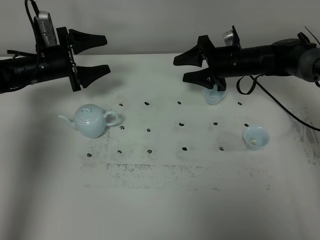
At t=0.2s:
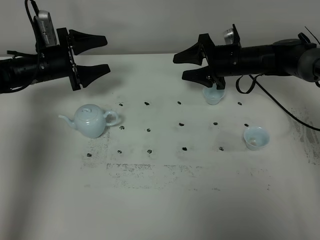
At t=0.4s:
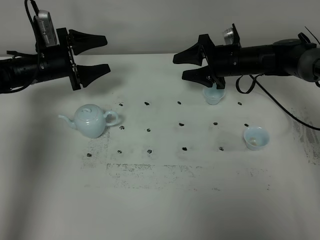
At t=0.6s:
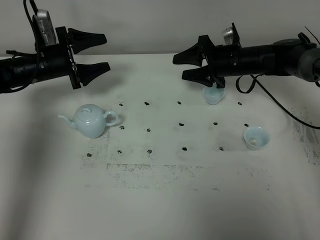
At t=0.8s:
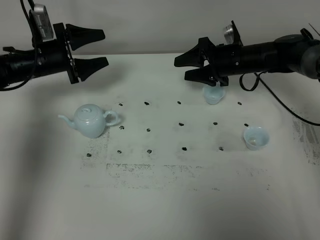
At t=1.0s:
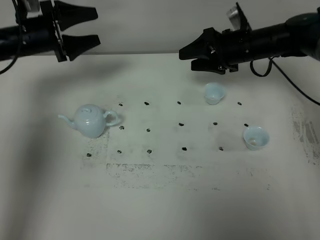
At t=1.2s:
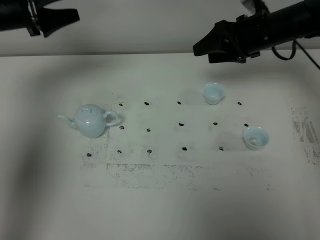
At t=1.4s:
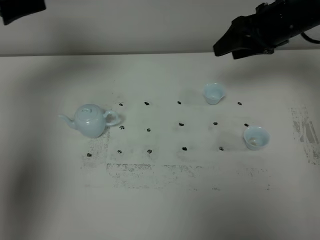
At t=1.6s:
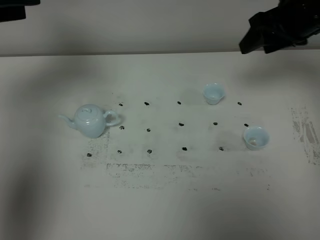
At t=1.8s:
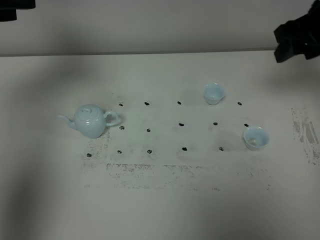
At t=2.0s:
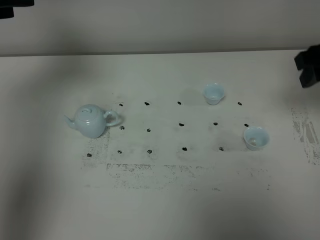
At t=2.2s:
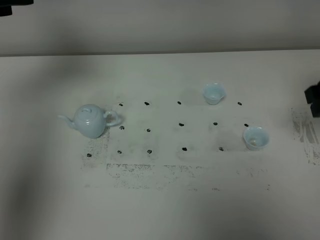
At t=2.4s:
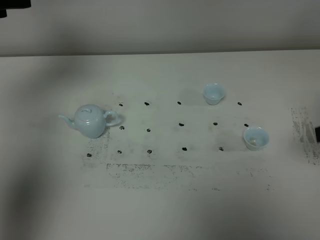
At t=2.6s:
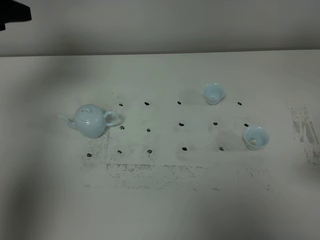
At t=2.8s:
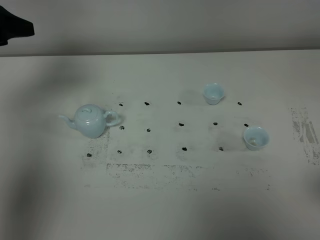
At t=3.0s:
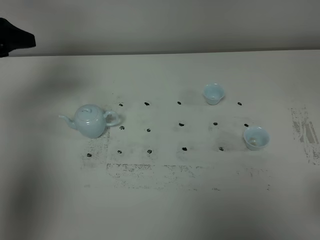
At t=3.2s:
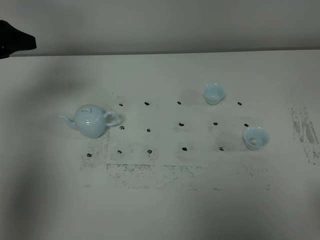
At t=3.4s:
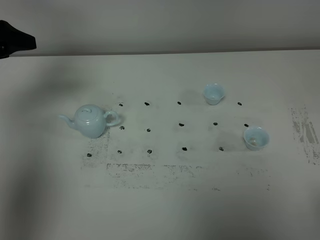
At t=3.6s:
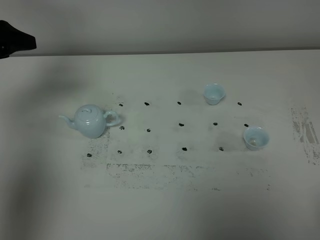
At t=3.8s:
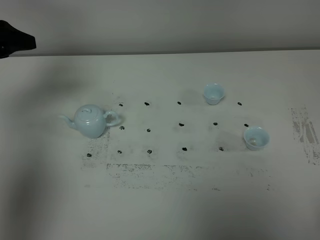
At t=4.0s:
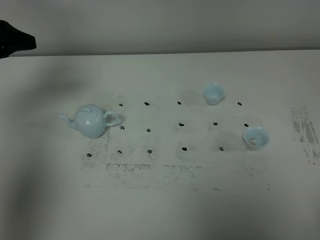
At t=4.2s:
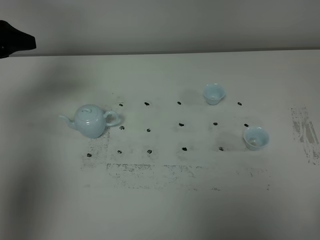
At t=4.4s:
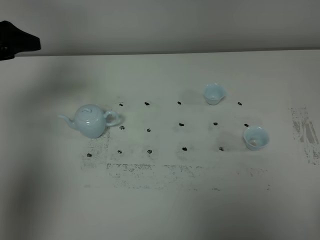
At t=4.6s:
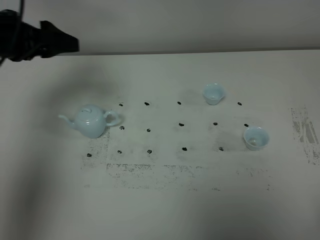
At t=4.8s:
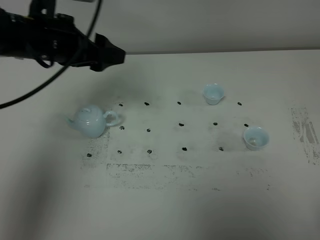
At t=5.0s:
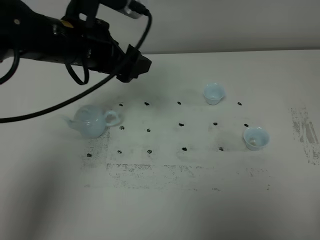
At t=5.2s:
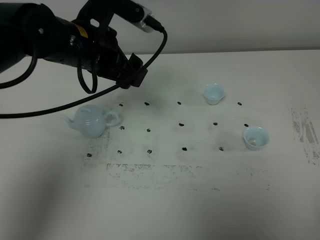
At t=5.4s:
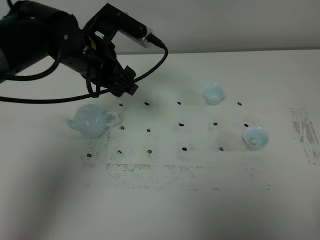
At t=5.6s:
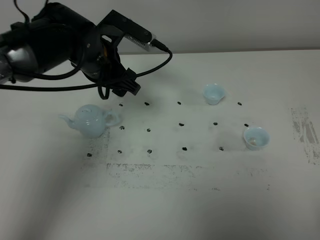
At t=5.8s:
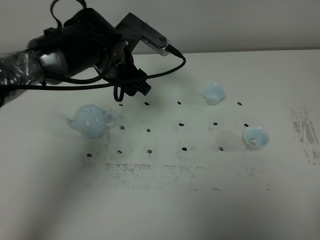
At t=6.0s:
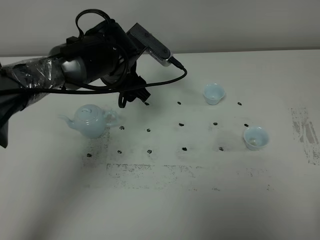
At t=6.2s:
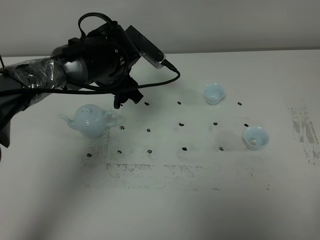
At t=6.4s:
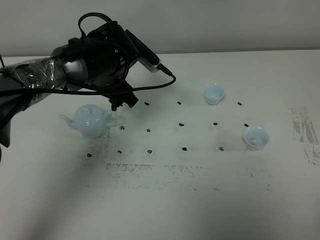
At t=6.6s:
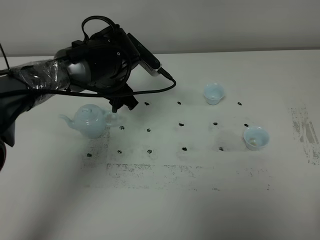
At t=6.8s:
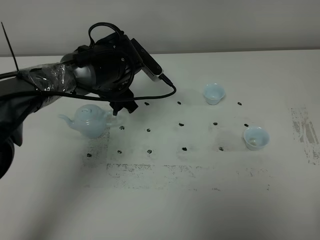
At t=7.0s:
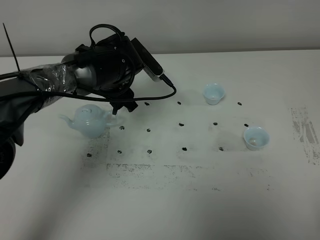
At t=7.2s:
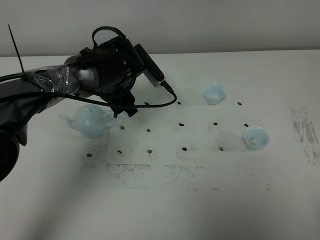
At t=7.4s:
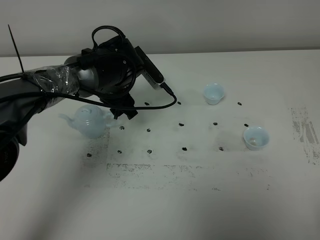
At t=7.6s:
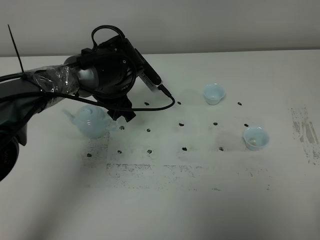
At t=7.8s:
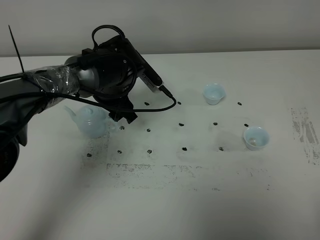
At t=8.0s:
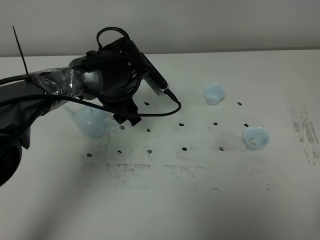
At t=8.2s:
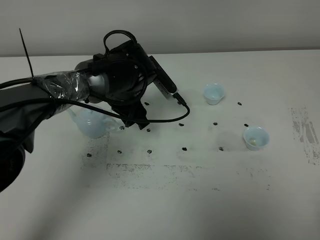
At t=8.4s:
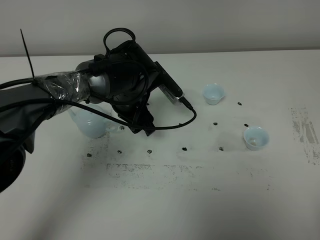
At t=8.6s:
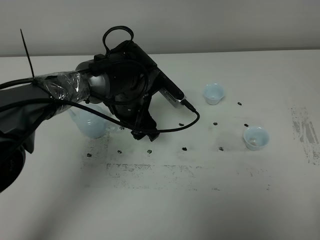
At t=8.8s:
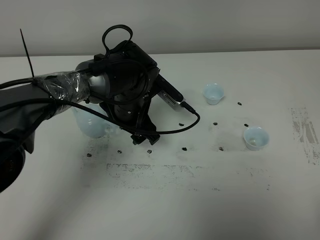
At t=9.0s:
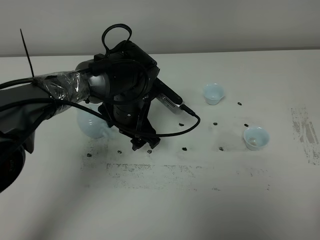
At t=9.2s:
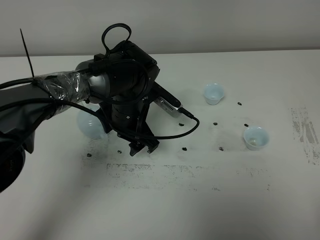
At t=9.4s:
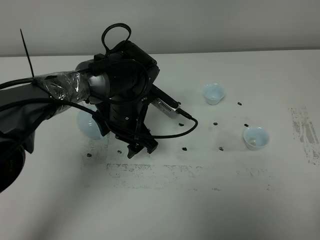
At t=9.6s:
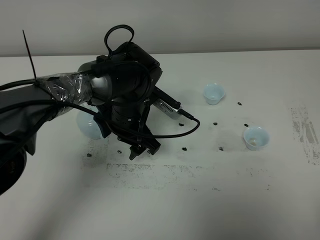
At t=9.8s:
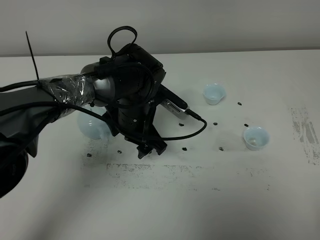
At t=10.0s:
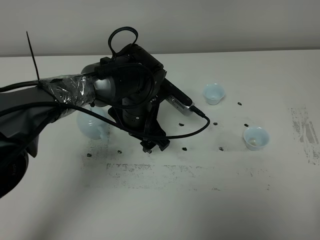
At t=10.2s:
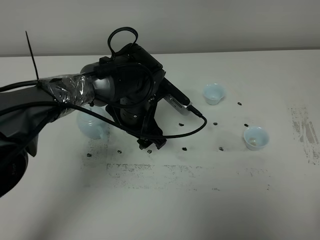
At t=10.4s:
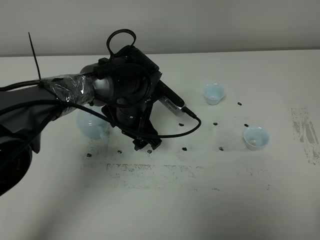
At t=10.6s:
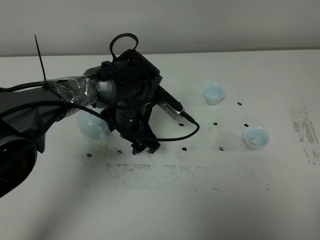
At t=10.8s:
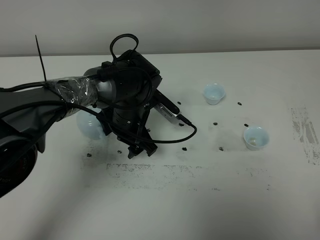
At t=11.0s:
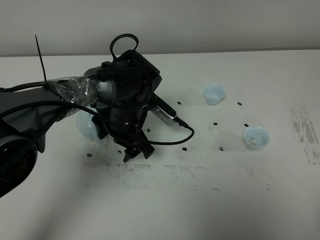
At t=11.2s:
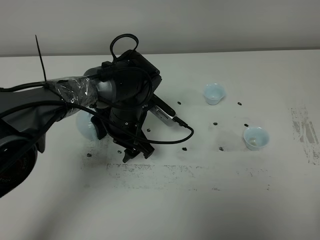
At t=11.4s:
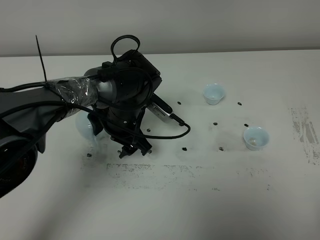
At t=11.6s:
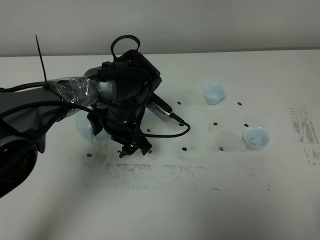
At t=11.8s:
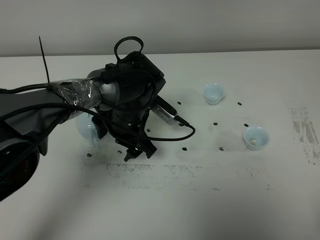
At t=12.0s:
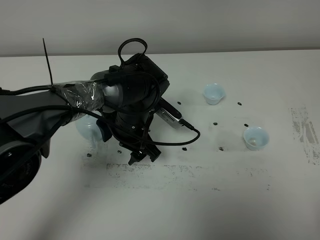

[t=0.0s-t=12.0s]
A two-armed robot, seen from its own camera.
Task of the whole recording: grasp the blue porcelain teapot and pour the tea into the two blue porcelain teacups one by one, put the blue porcelain teapot back in its original place.
t=0.0s to t=1.6s: Both grippers move upward and backward, approximately 25 cm.
t=1.6s to t=3.0s: The left gripper moves downward, some 10 cm, while the right gripper is displaced backward by about 35 cm.
t=4.4s to t=6.0s: The left gripper goes some 25 cm to the right.
t=6.0s to t=7.6s: There are only small adjustments of the grippers.
t=7.6s to t=9.0s: The left gripper shifts by about 5 cm.
t=9.0s to t=12.0s: There are only small adjustments of the grippers.

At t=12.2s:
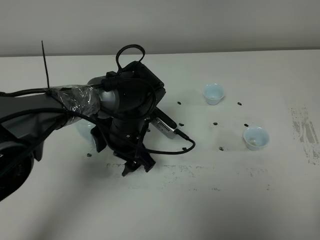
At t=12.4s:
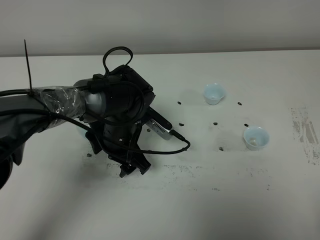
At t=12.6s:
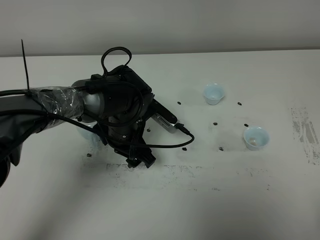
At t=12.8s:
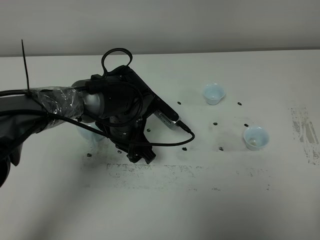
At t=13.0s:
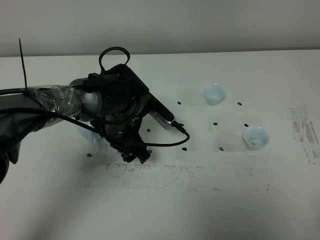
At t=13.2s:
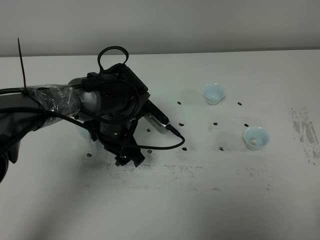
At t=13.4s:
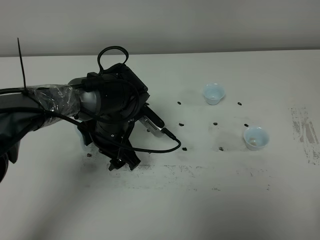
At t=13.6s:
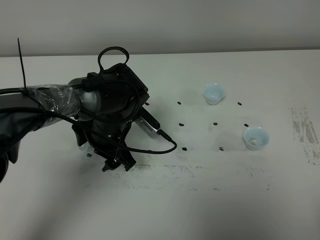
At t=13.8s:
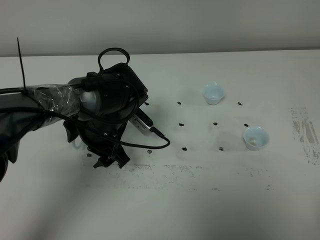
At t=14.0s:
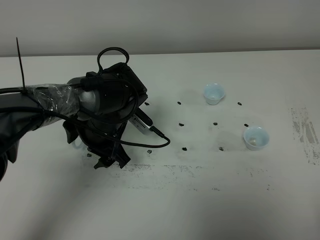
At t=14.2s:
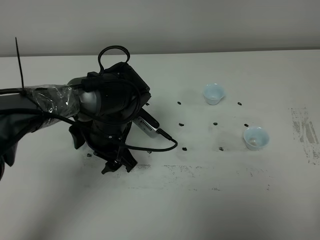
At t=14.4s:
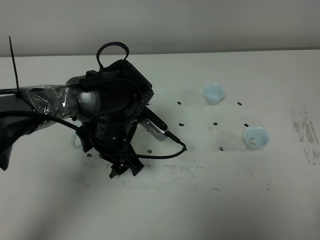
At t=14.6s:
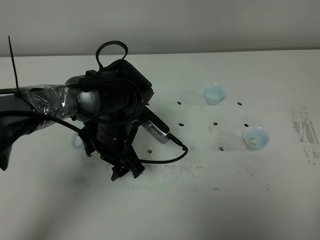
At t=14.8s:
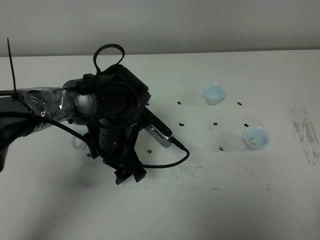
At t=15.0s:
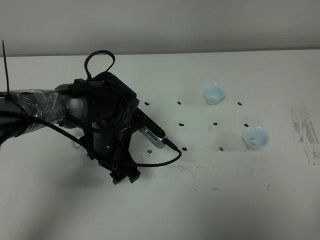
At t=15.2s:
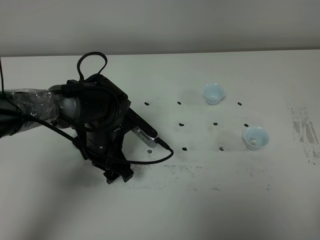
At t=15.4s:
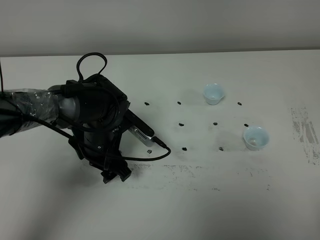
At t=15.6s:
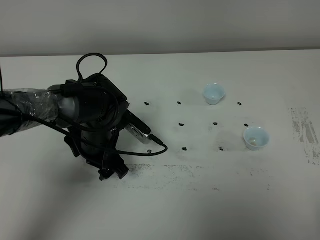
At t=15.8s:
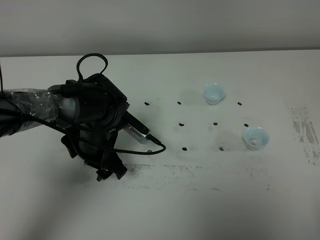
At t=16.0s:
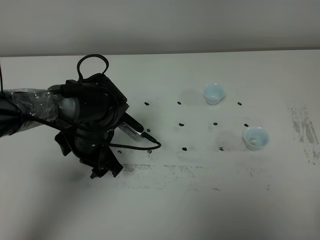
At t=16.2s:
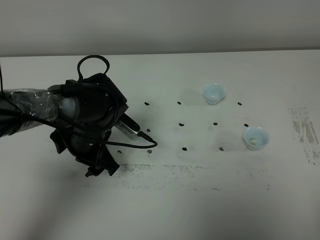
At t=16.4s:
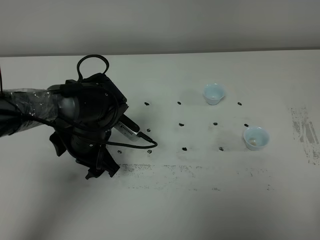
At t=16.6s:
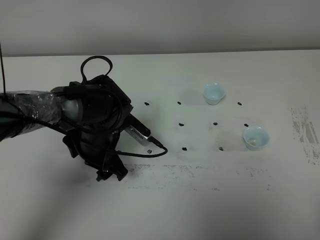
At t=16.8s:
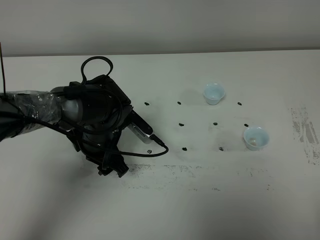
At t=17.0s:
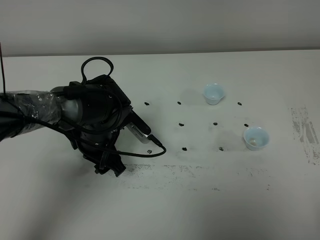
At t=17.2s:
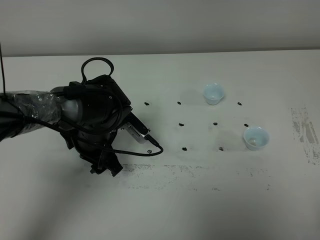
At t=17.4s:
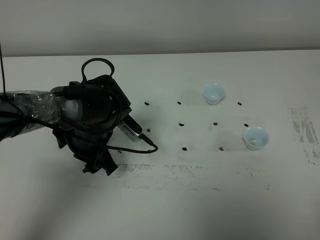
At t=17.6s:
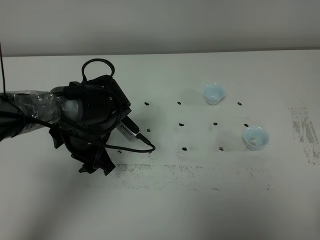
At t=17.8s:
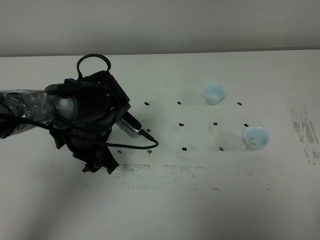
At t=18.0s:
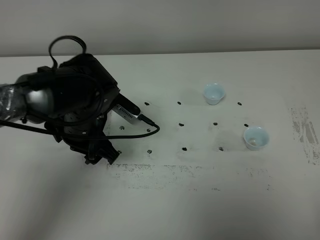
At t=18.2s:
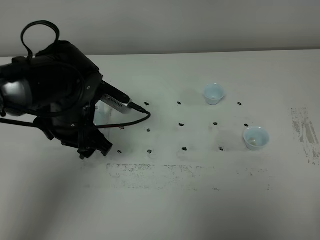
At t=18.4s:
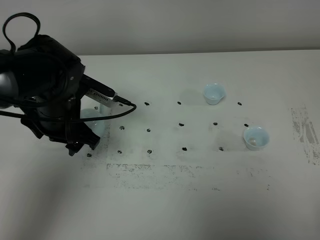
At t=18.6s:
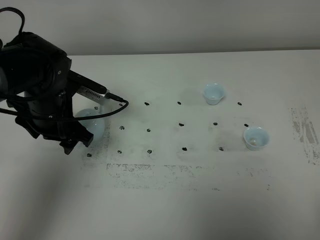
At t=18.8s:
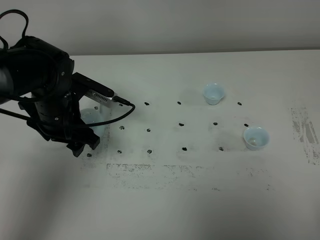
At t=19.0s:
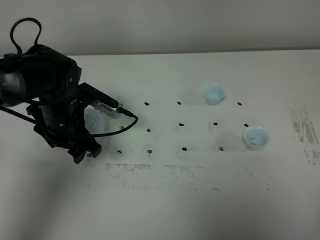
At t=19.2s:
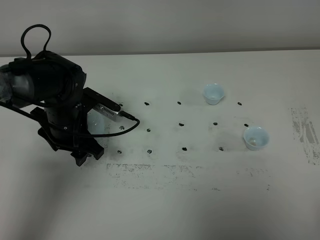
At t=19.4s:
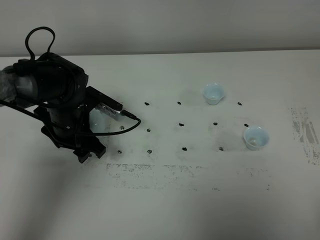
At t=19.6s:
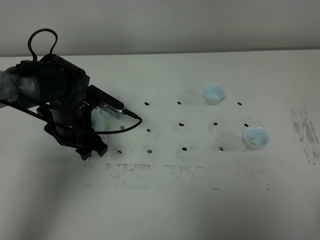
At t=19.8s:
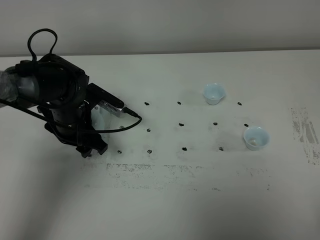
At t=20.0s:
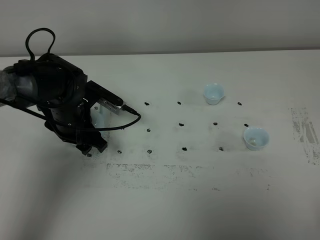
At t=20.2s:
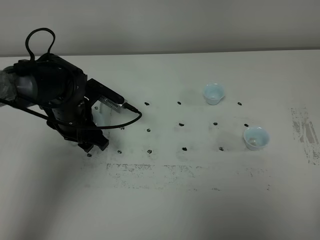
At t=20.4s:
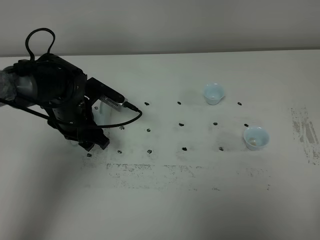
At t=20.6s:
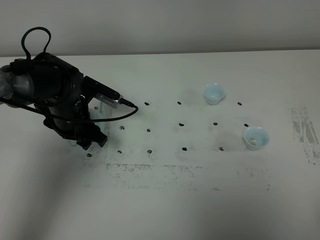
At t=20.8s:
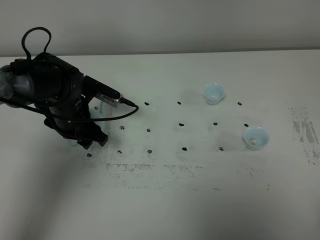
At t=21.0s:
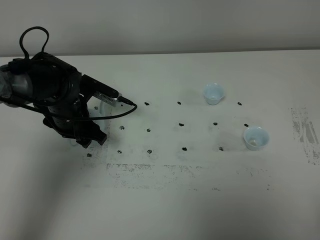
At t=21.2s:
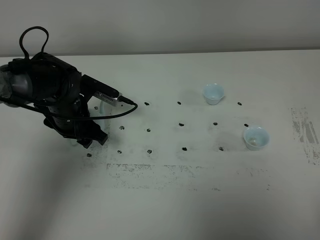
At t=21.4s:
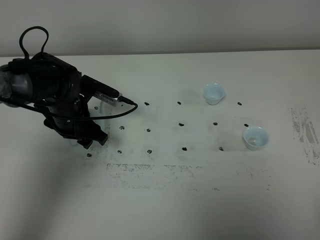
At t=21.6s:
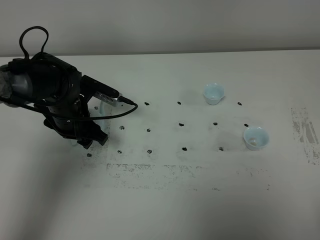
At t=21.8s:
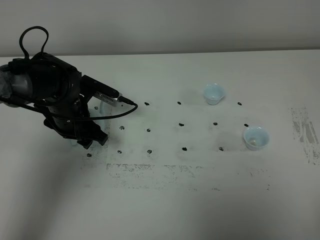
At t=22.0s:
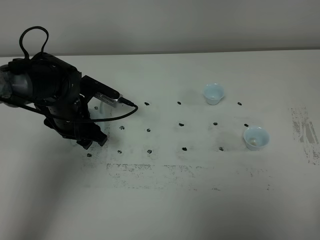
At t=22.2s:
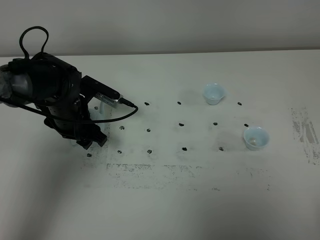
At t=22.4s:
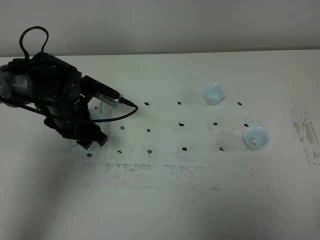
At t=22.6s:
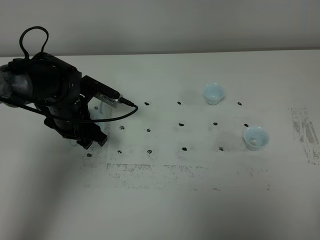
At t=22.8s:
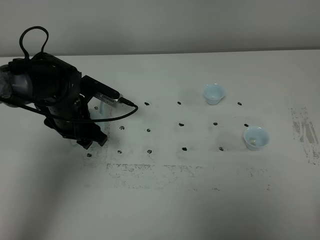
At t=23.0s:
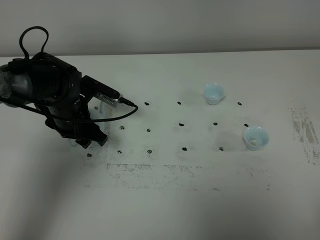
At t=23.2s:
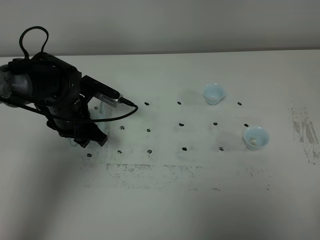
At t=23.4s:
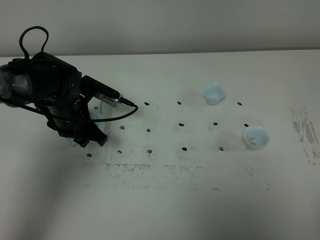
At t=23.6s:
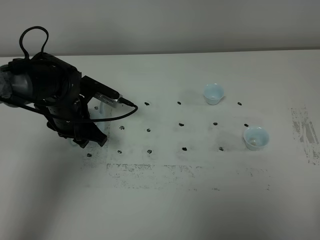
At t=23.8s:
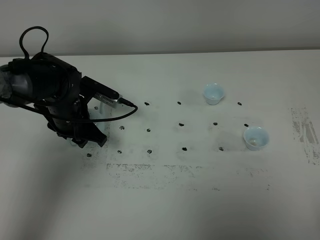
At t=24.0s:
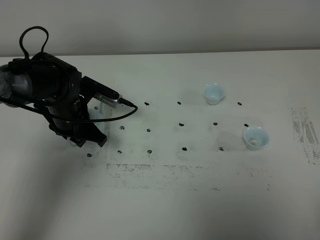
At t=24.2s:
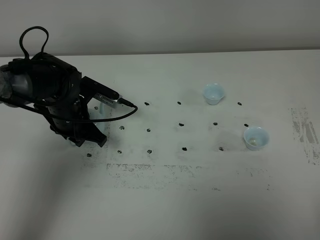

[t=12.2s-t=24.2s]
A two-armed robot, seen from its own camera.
Task of the whole recording: grasp the blue porcelain teapot and pour the tea into the two blue porcelain teacups one by one, put the blue porcelain teapot back in its original place.
t=12.2s to t=15.2s: The grippers make only small movements.
t=15.2s to t=16.6s: The grippers move only a little.
t=16.6s to t=18.2s: The left gripper goes some 10 cm upward.
t=18.2s to t=19.8s: The left gripper shifts approximately 5 cm downward.
t=19.8s to t=21.2s: There are only small adjustments of the grippers.
t=21.2s to t=22.6s: Both grippers stay about where they are.
t=22.6s to t=24.2s: The left gripper closes.
